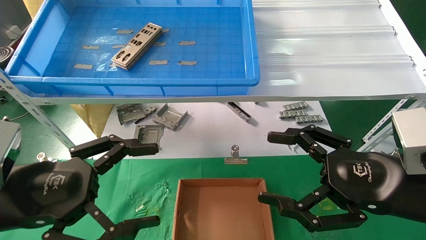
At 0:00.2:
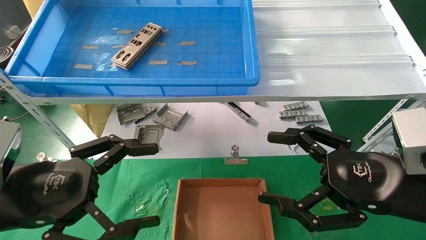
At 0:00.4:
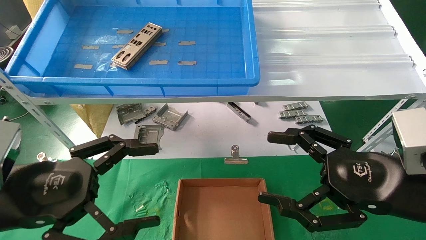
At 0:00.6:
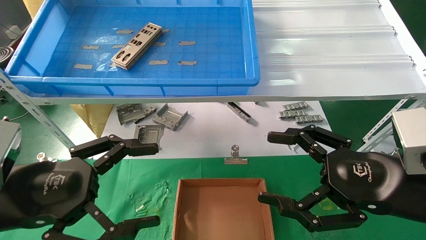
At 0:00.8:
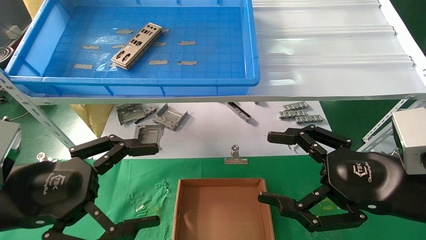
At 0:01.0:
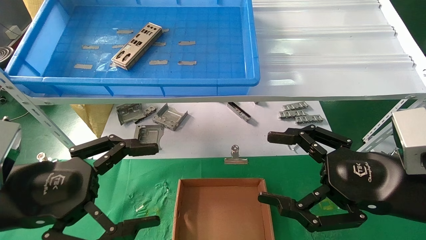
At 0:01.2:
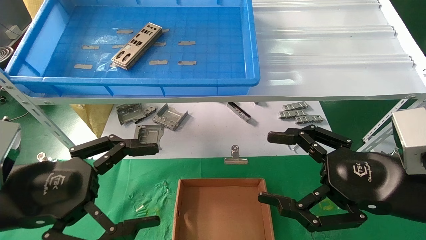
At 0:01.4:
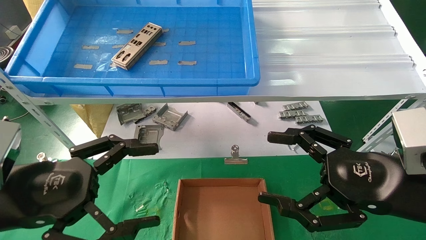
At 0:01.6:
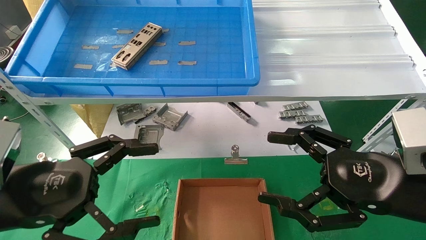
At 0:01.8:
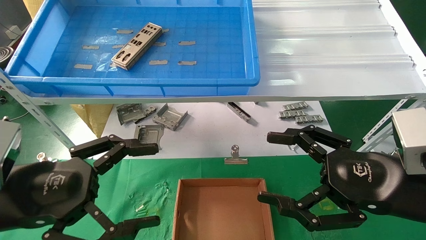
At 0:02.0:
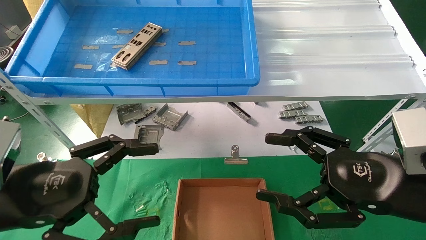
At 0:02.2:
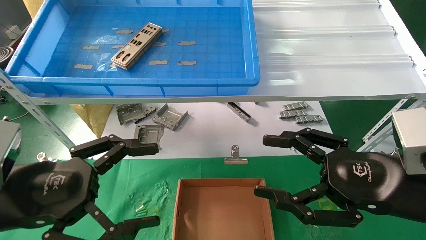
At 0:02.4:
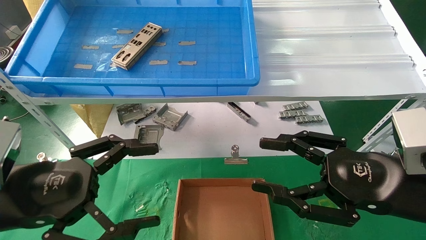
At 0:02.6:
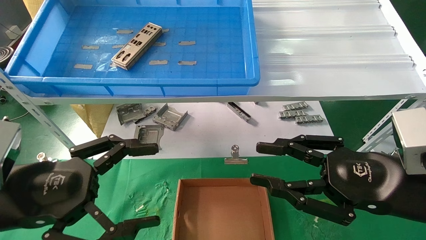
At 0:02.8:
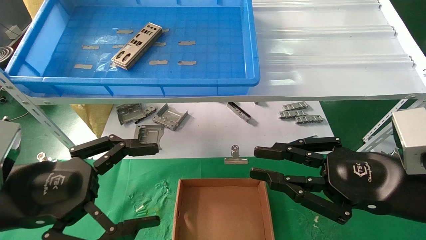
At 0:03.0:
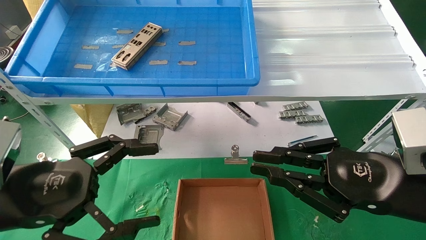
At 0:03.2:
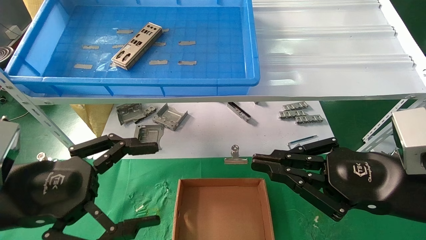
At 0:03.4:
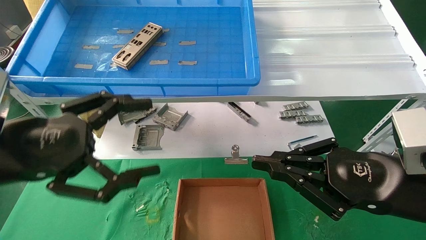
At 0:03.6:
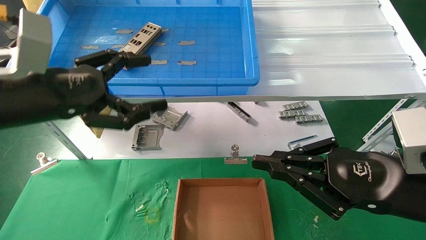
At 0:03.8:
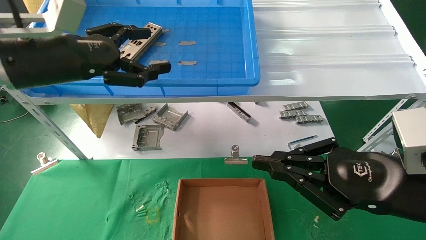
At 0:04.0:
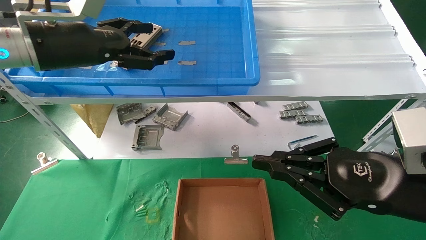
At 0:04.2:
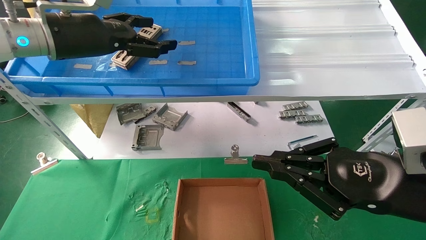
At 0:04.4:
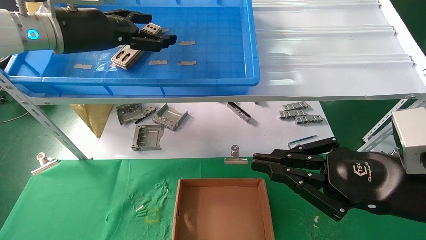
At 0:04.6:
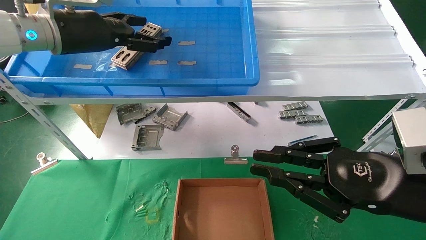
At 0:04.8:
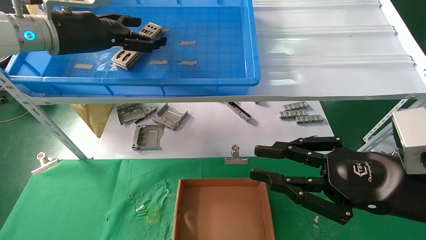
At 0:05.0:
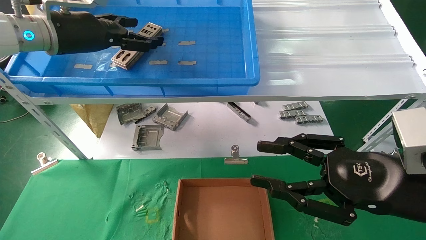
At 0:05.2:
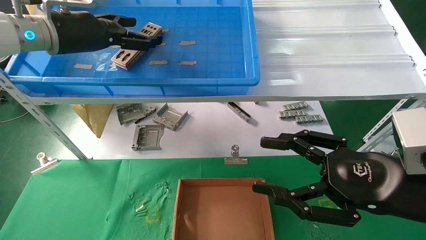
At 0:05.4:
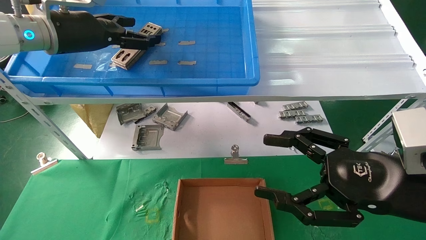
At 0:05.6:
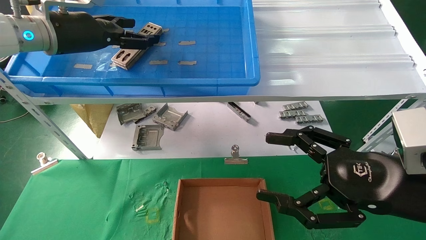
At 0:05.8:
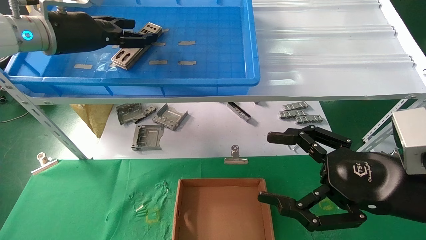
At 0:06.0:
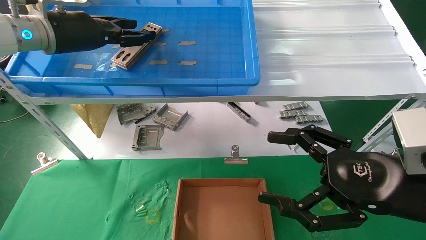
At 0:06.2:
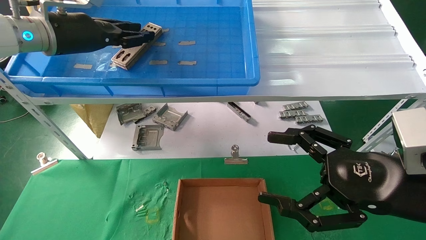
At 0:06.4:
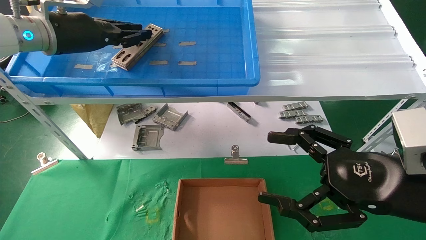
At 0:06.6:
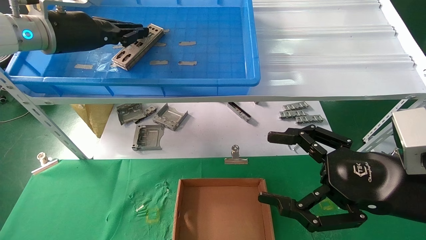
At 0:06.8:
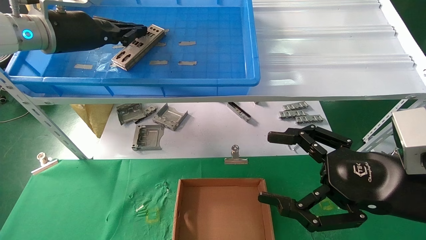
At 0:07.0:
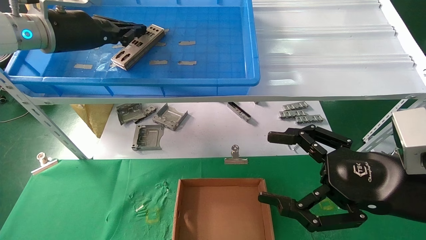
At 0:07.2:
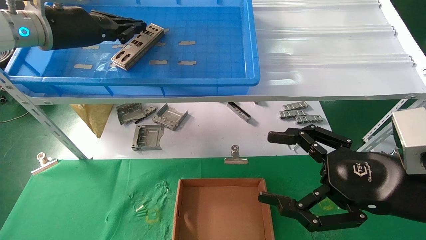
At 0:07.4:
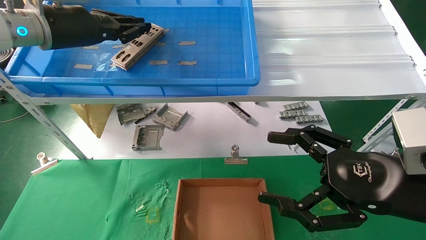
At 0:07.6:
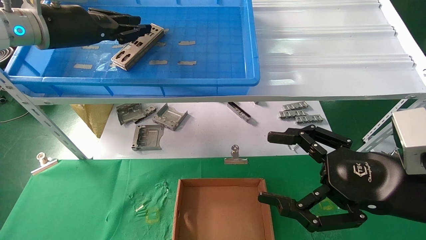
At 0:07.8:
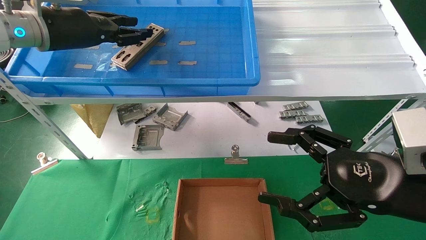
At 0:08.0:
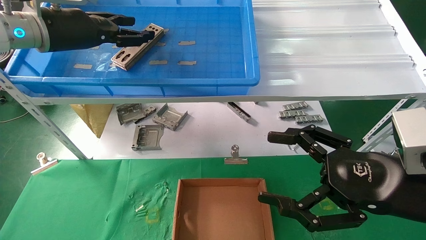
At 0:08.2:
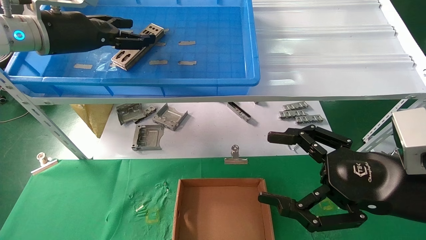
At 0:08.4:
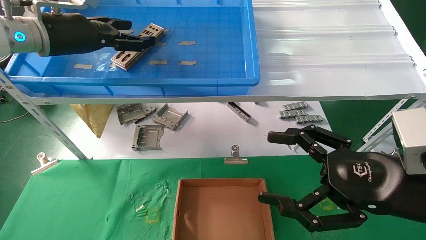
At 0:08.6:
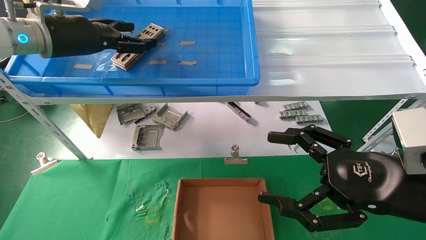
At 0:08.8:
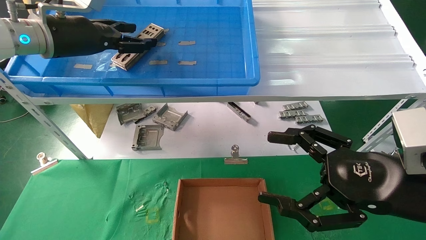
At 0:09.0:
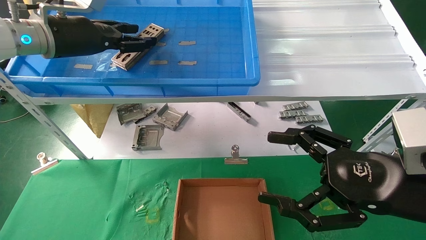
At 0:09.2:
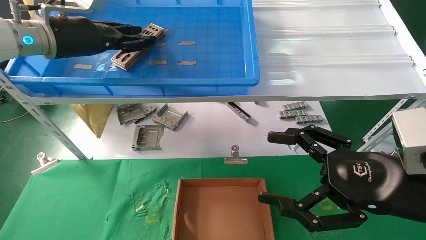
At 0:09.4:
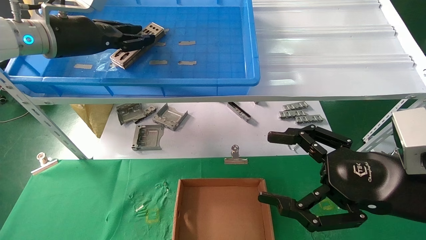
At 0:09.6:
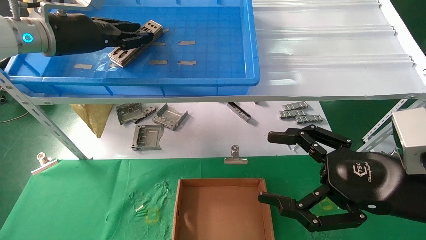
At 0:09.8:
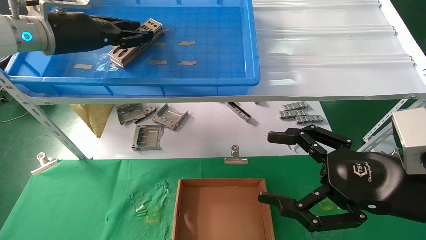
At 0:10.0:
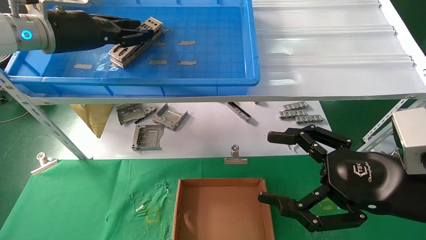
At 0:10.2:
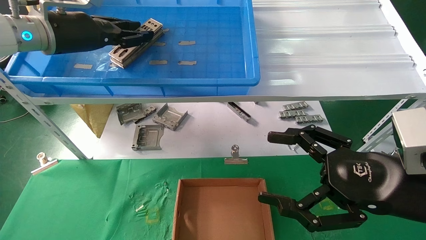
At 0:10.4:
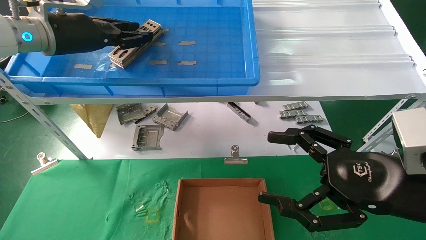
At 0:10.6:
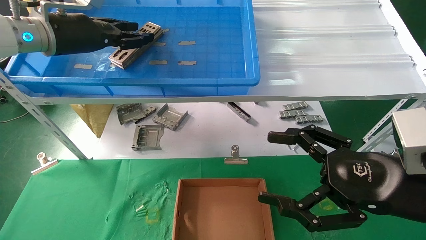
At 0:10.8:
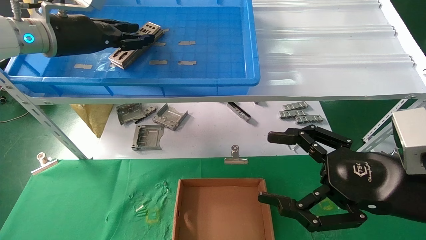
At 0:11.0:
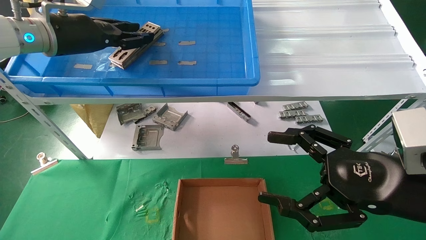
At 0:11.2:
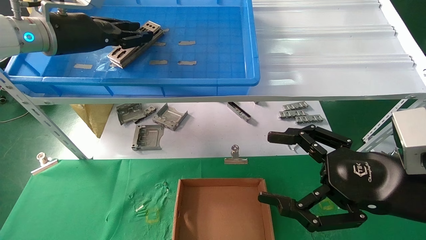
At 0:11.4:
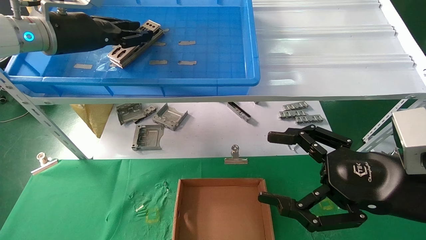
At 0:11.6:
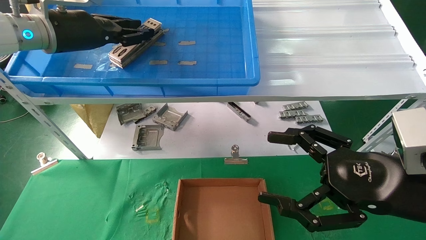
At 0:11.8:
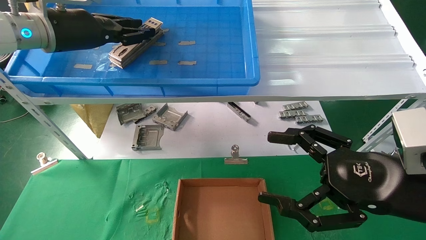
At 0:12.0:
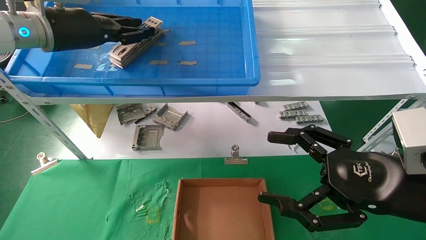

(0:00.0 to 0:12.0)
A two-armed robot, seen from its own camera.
Task of the whole recording: pick up the parts on the tray and put them in the cardboard box.
Step, 0:03.6 - 0:11.6: Pick up the IO bracket from the container box.
0:00.0 - 0:01.6: The two grippers keep their place.
0:01.6 - 0:03.0: The right gripper closes.
0:03.0 - 0:04.4: The left gripper moves forward and upward, approximately 25 cm.
0:04.4 - 0:06.0: The right gripper opens.
0:06.0 - 0:07.6: The left gripper closes up.
0:07.6 - 0:09.0: The left gripper opens its fingers.
0:09.0 - 0:10.4: The two grippers keep their place.
0:10.4 - 0:12.0: The grippers stay close to where they were, moving slightly.

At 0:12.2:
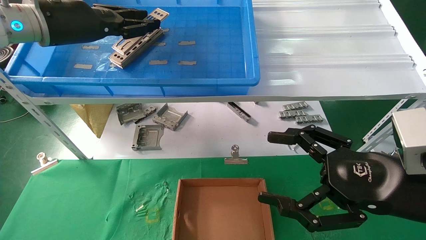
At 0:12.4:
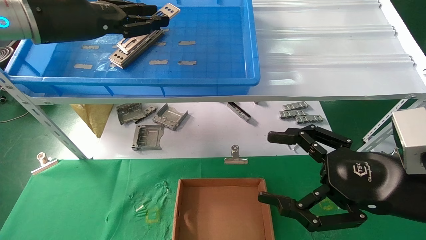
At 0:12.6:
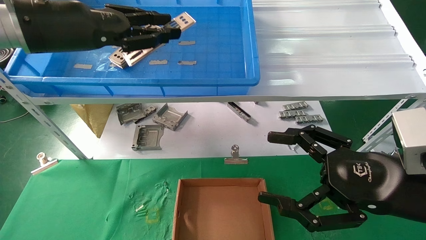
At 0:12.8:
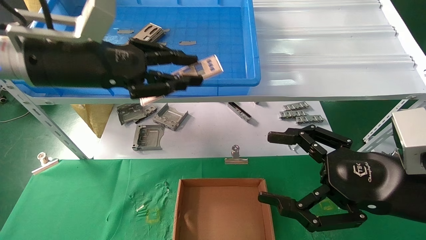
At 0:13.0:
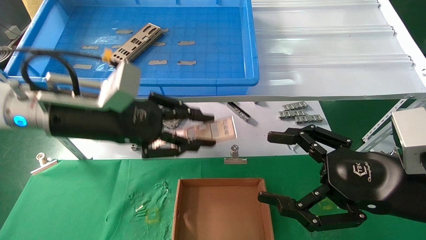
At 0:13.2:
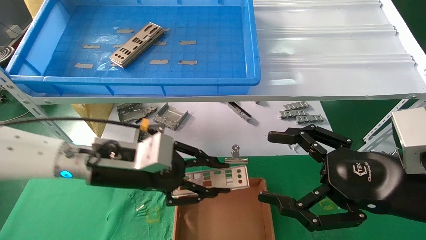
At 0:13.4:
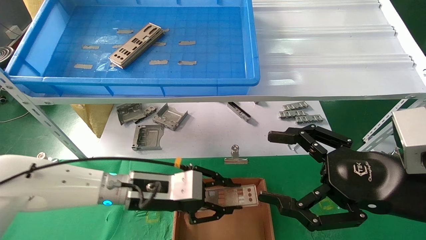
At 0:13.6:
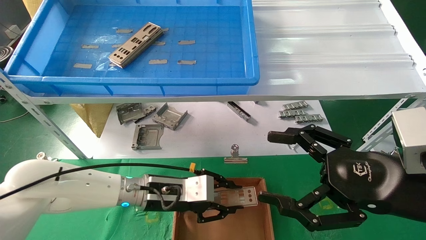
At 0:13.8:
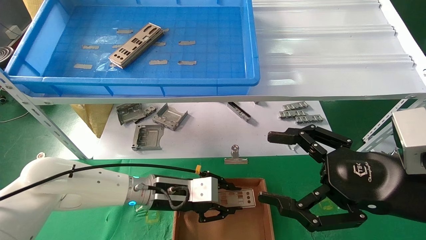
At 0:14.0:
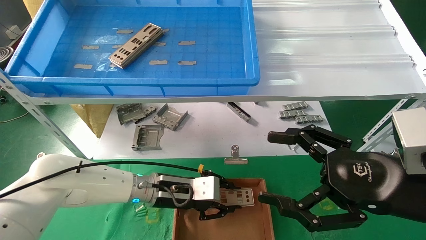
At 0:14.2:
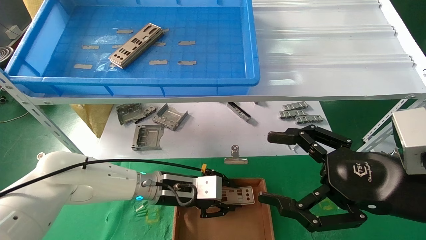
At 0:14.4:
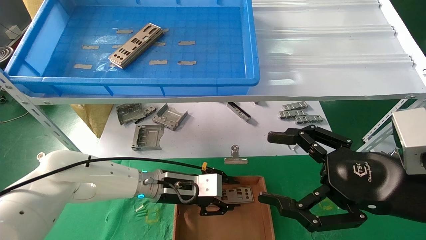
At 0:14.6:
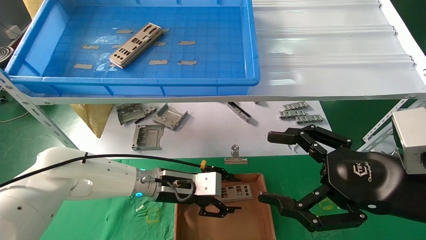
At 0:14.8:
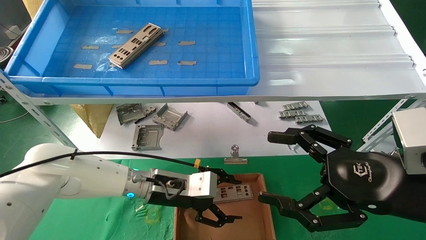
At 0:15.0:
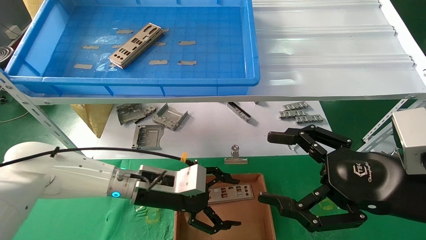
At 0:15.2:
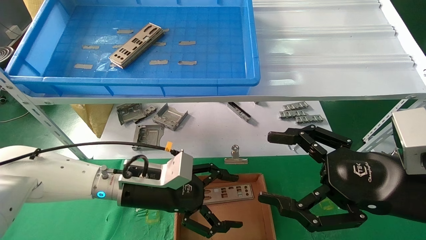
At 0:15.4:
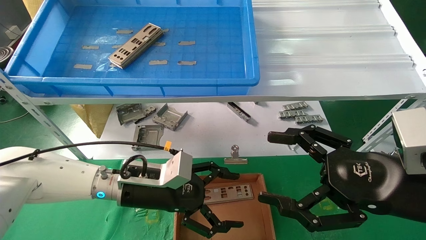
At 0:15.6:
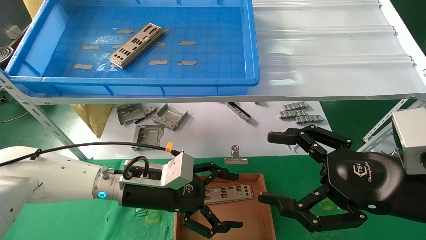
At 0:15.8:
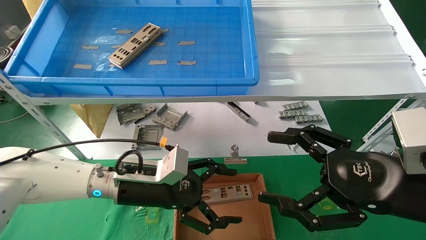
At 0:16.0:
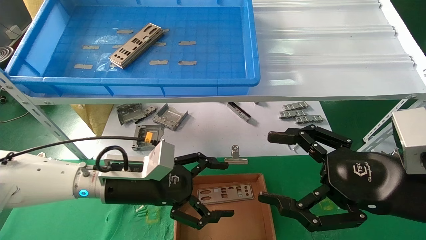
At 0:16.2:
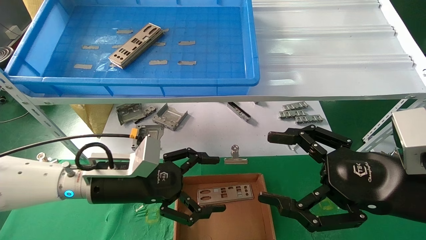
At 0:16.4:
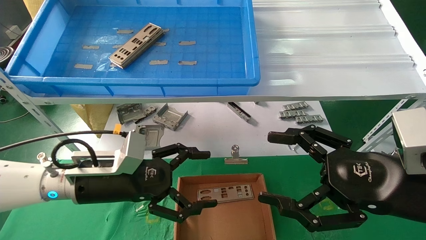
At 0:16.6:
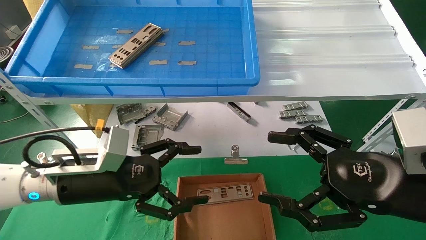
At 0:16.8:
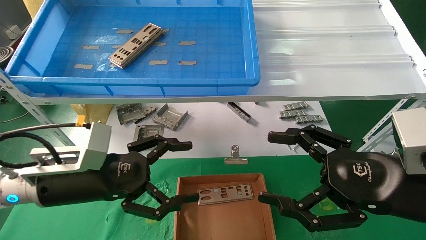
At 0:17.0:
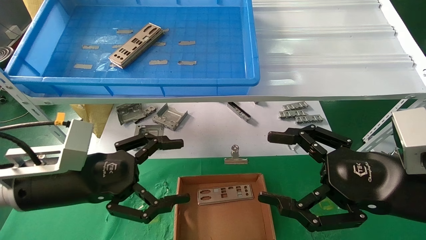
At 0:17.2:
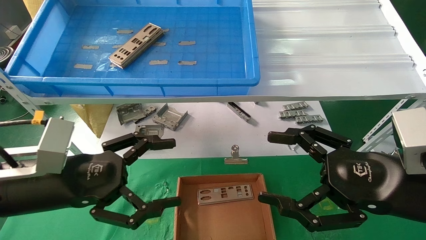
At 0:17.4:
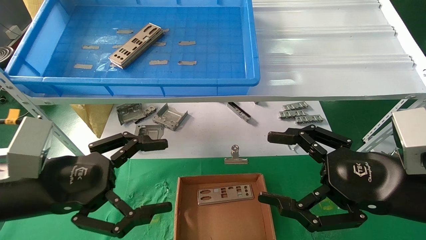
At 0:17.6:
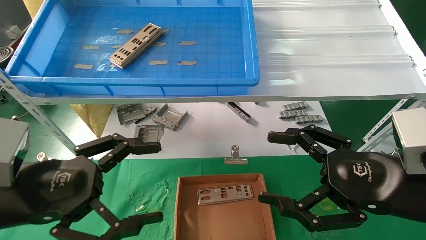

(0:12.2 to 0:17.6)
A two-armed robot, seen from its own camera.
Task of the whole recording: pick up the parts on the tray and put them in the cardboard box.
Step, 0:12.2 - 0:14.4: Place the IO bracket into the ingredient slot.
0:12.2 - 0:13.6: The left gripper heads downward and to the right, covering approximately 35 cm.
0:13.6 - 0:15.0: The left gripper opens up.
0:15.0 - 0:16.2: The left gripper shifts roughly 5 cm to the left.
0:16.2 - 0:17.6: The left gripper shifts roughly 15 cm backward, to the left and upward.
